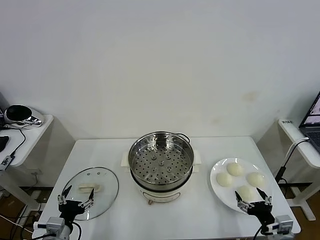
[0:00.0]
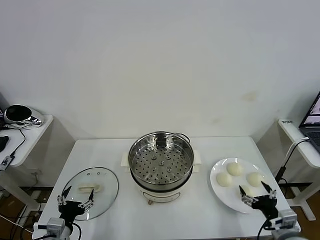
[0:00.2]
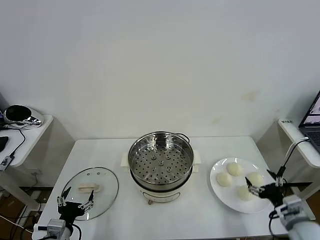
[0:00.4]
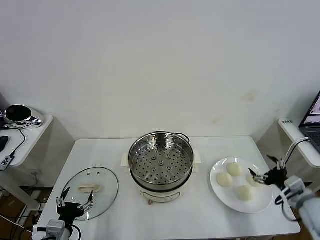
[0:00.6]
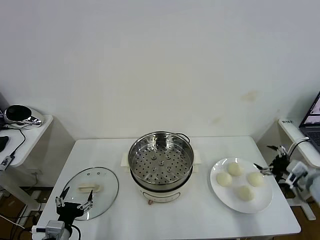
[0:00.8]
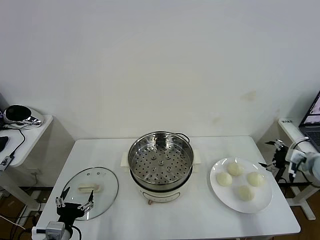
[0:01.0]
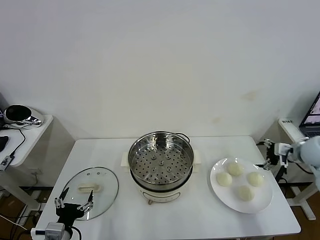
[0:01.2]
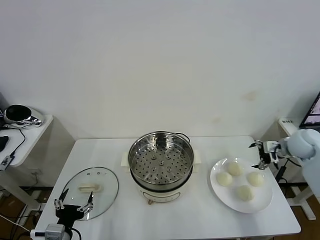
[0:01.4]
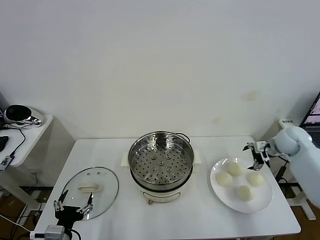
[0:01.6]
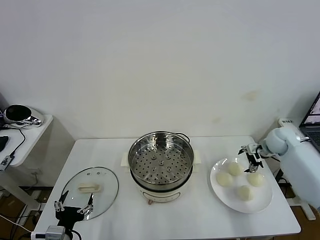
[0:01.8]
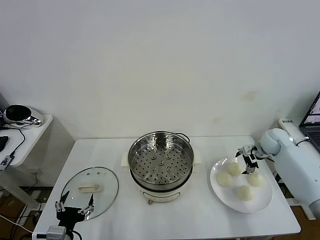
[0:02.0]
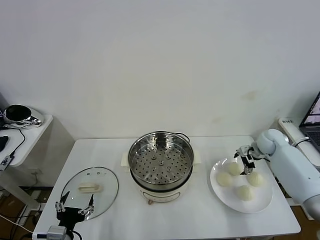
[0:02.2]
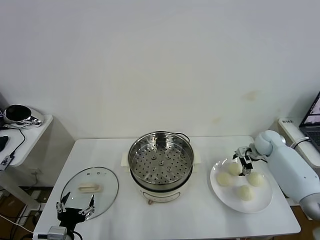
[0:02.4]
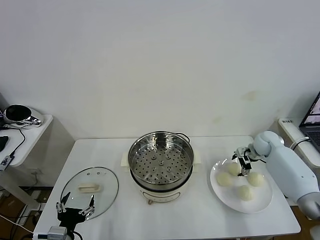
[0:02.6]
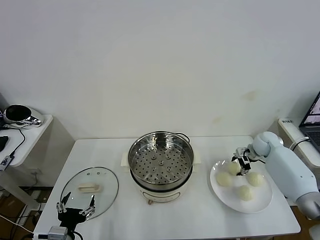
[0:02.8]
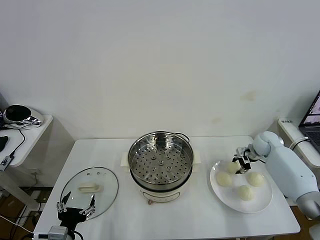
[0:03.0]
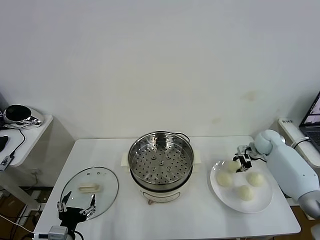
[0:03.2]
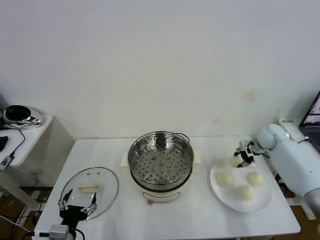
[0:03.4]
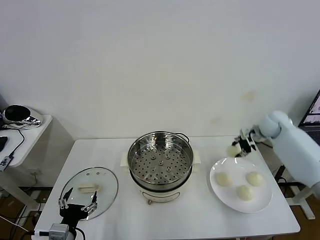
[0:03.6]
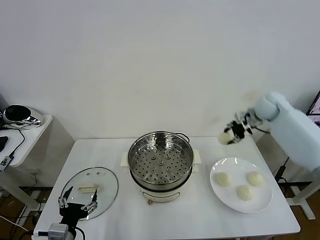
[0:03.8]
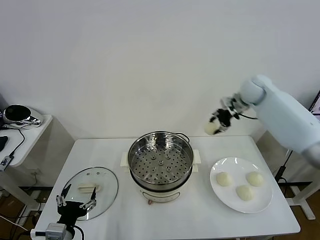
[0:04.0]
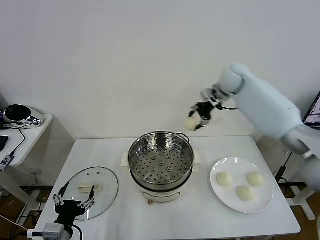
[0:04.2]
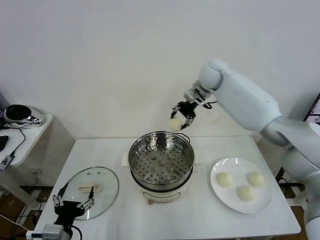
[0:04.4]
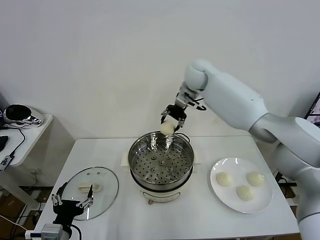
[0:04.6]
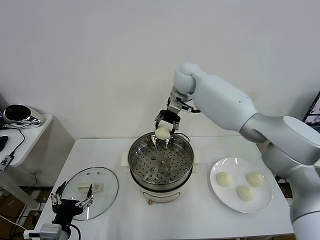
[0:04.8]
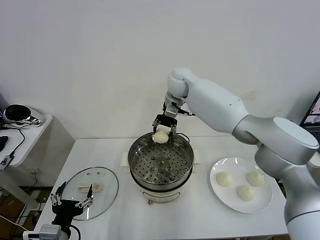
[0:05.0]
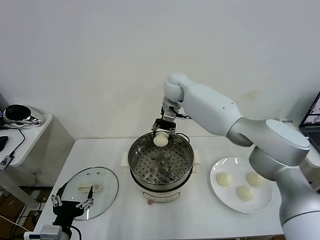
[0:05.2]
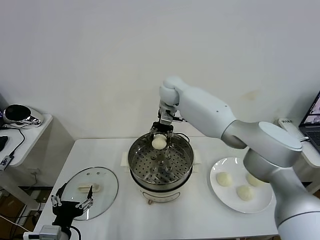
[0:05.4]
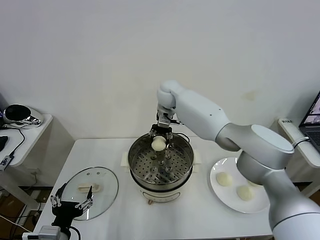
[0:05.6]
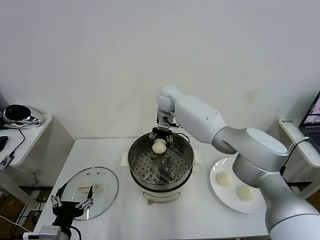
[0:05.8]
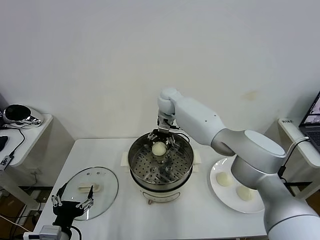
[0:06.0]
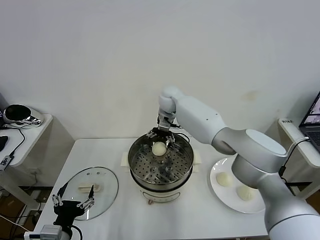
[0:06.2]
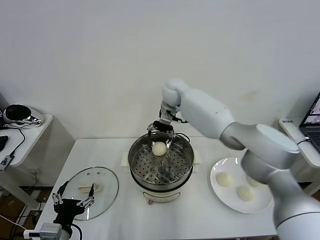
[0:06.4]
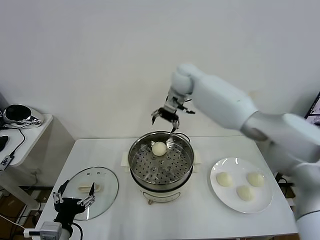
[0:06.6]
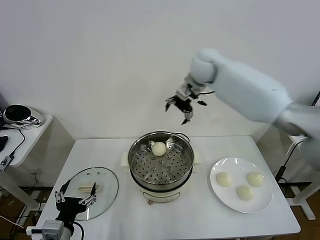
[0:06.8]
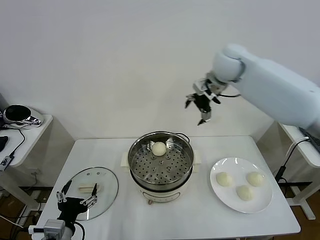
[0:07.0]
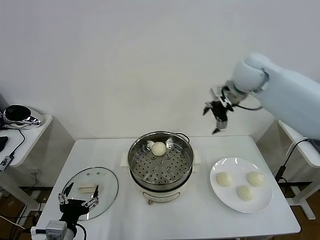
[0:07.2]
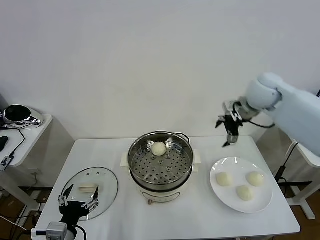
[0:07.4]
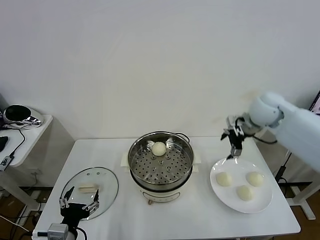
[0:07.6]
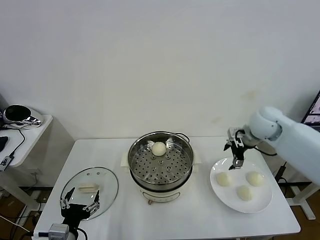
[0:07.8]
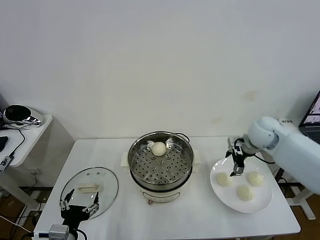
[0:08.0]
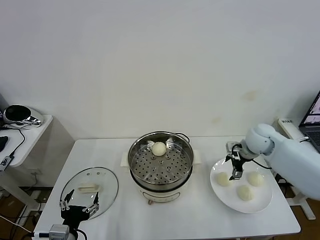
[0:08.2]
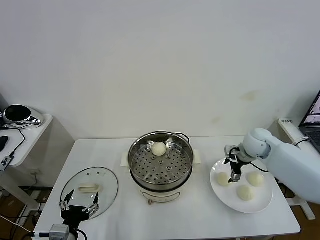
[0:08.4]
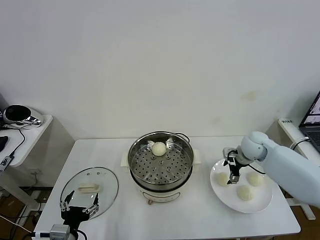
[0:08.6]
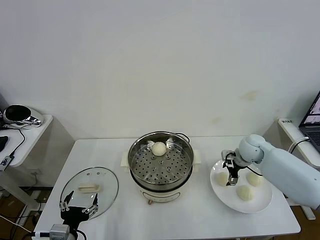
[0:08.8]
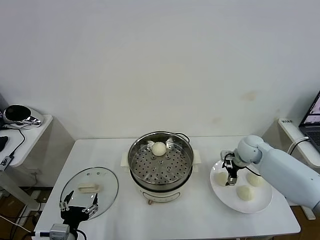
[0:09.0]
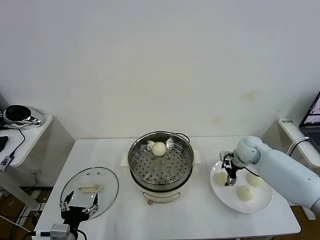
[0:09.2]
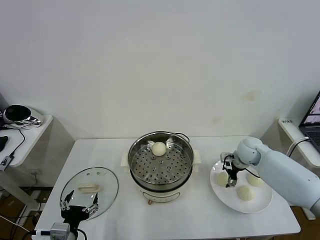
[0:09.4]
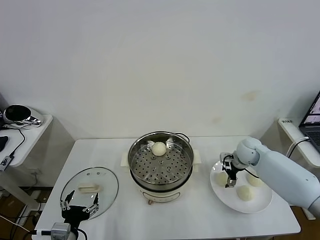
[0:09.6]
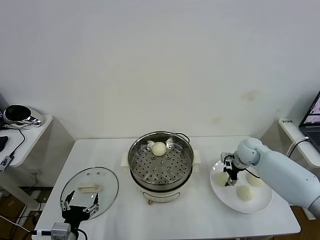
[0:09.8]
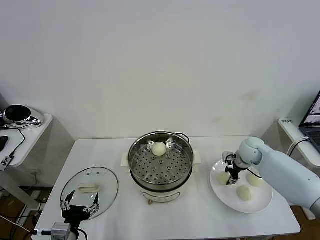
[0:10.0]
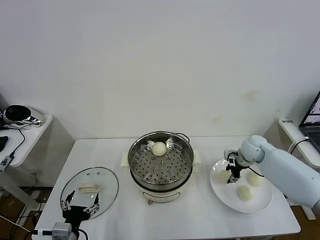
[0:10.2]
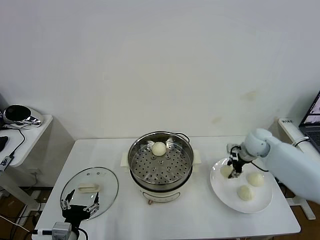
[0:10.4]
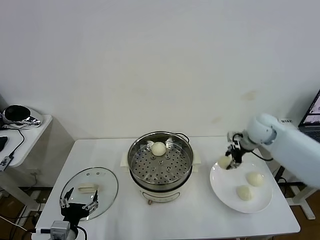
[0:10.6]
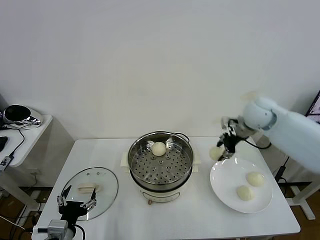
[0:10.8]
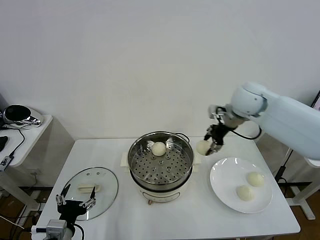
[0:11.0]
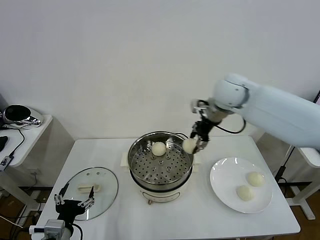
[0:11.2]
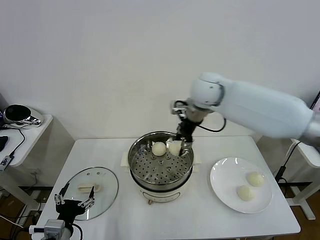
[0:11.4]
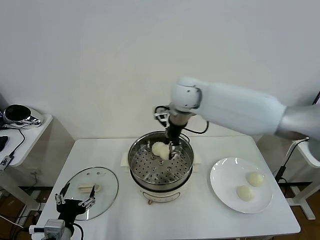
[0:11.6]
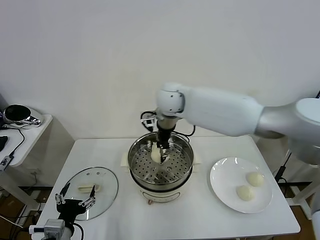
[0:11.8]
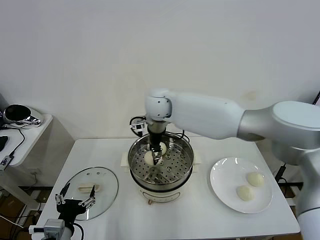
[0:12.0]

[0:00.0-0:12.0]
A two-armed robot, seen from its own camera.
Task of the whole recording: take steamed baozi put them in steamer then cover it.
Step, 0:00.0 to 0:03.0: Grasp the baozi in the plate with right gripper.
Step, 0:03.2 to 0:06.2: Place the baozi on the steamer with right gripper.
Step, 0:06.4 to 0:10.0: Grasp the baozi in the plate with right gripper.
0:01.6 to 0:03.0: The right gripper heads downward, covering approximately 5 cm, and closes its fingers.
0:03.0 to 0:04.4: The right gripper travels to the left and upward by some 35 cm.
0:04.4 to 0:06.0: The right gripper goes some 15 cm to the left and downward, and opens up.
0:06.0 to 0:07.6: The right gripper moves to the right and backward, some 30 cm.
0:07.6 to 0:09.0: The right gripper shifts approximately 15 cm downward.
0:09.0 to 0:10.4: The right gripper moves roughly 5 cm, and closes its fingers.
0:10.4 to 0:12.0: The right gripper shifts about 35 cm to the left.

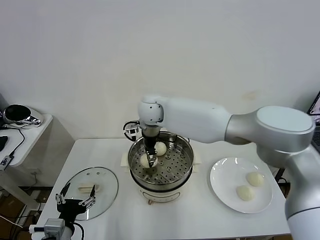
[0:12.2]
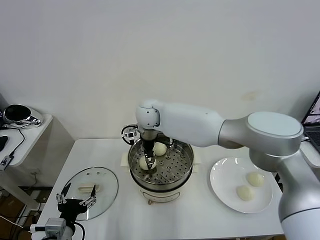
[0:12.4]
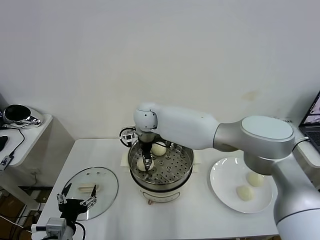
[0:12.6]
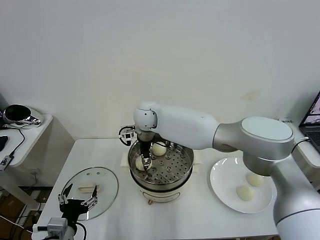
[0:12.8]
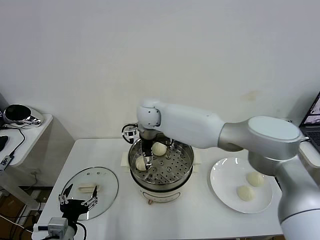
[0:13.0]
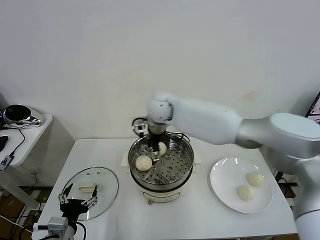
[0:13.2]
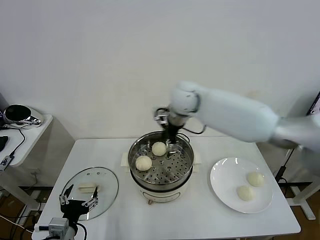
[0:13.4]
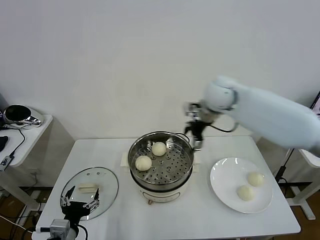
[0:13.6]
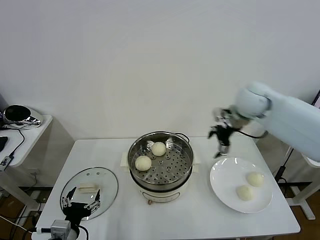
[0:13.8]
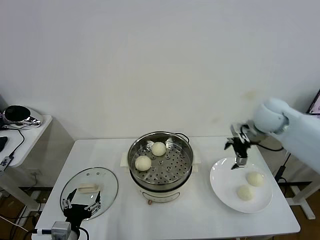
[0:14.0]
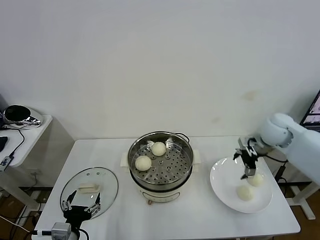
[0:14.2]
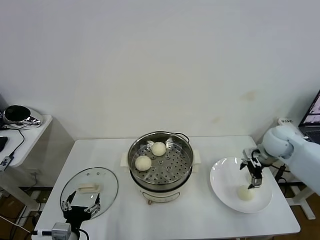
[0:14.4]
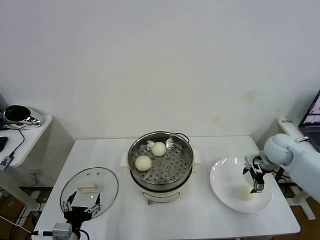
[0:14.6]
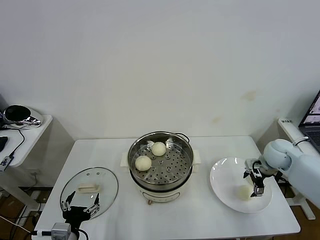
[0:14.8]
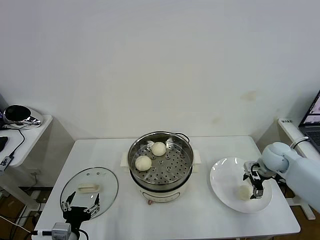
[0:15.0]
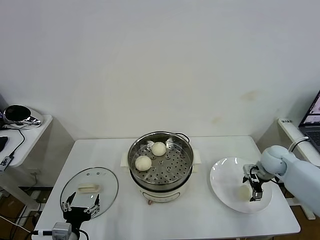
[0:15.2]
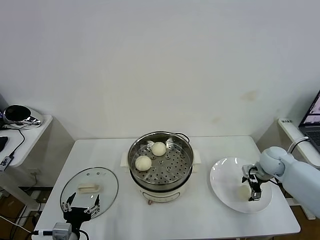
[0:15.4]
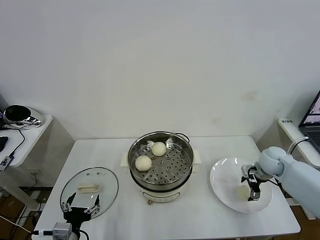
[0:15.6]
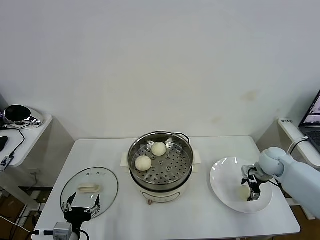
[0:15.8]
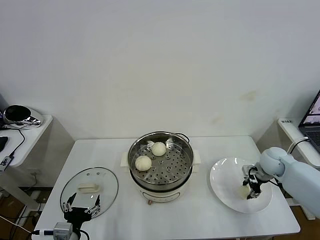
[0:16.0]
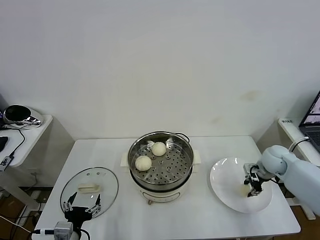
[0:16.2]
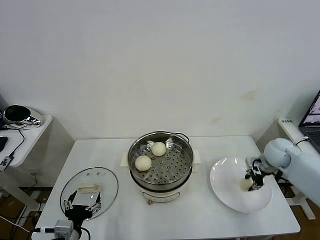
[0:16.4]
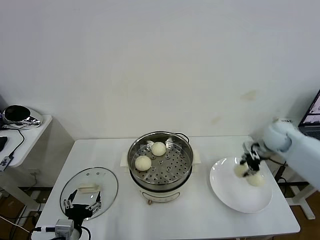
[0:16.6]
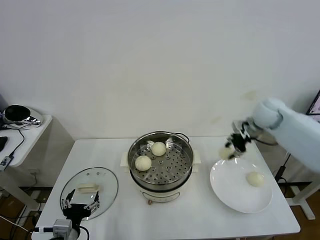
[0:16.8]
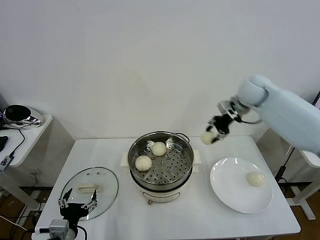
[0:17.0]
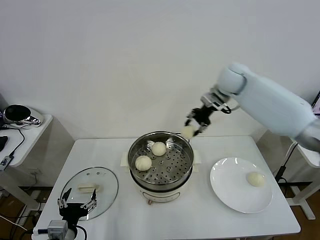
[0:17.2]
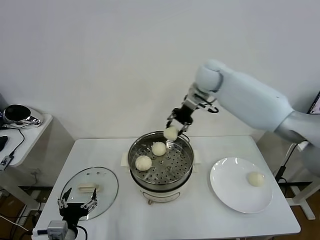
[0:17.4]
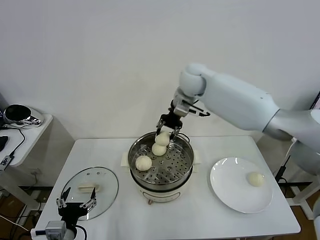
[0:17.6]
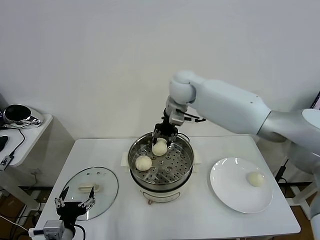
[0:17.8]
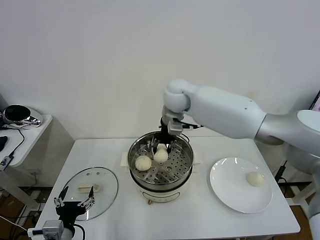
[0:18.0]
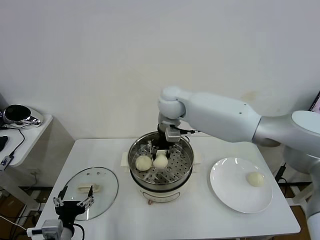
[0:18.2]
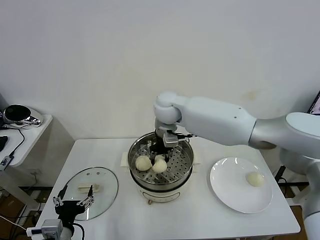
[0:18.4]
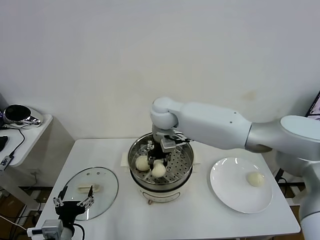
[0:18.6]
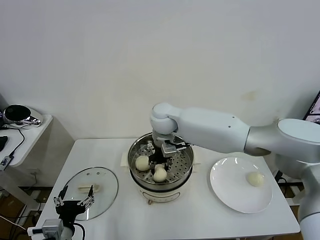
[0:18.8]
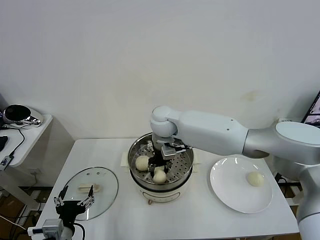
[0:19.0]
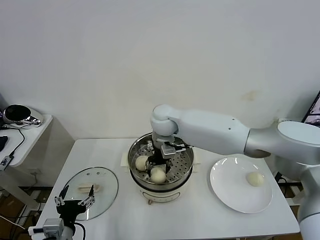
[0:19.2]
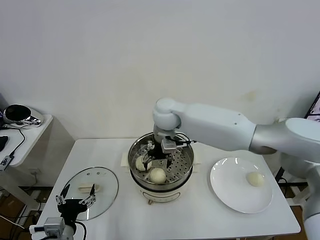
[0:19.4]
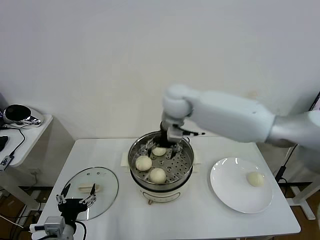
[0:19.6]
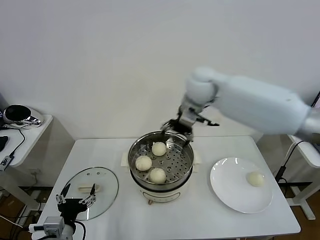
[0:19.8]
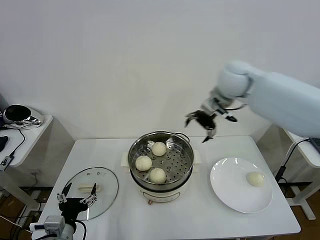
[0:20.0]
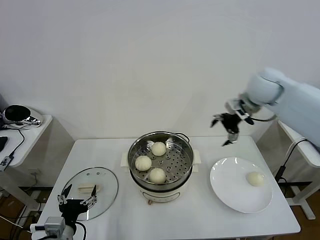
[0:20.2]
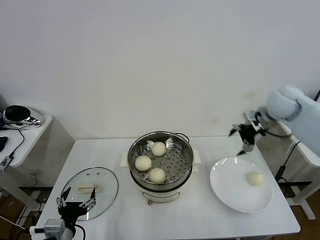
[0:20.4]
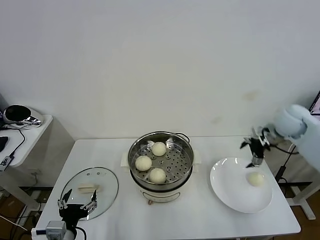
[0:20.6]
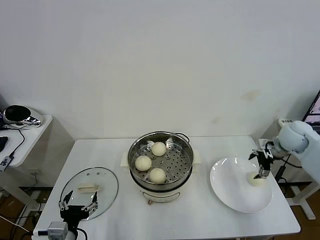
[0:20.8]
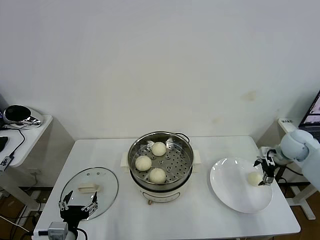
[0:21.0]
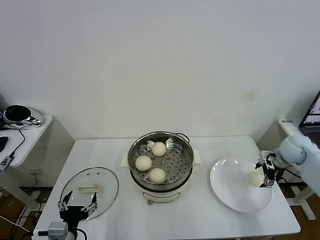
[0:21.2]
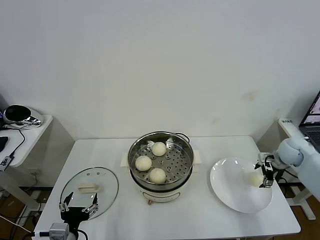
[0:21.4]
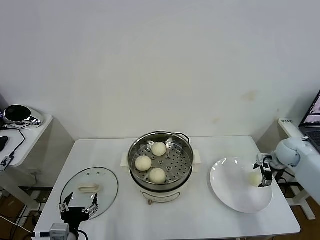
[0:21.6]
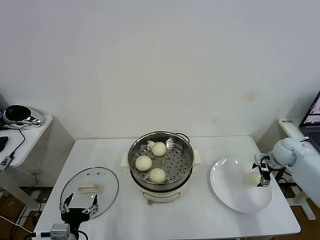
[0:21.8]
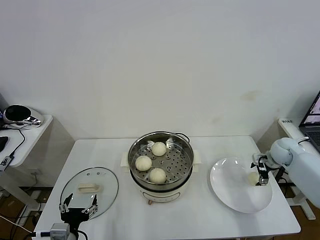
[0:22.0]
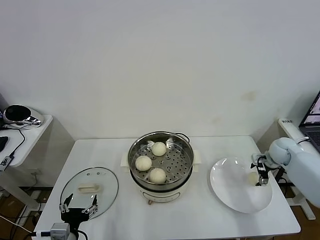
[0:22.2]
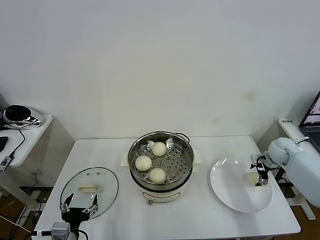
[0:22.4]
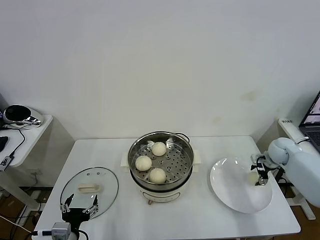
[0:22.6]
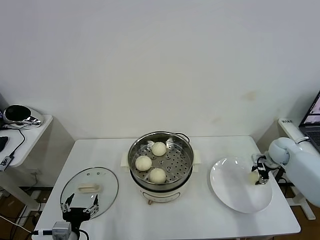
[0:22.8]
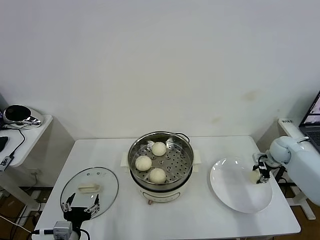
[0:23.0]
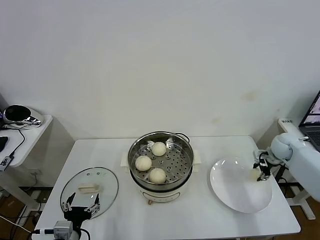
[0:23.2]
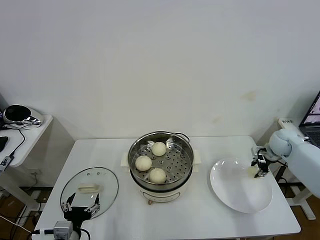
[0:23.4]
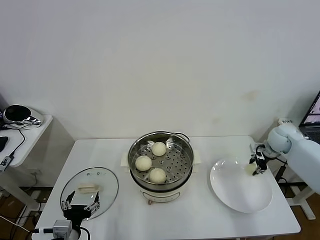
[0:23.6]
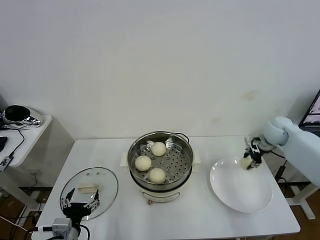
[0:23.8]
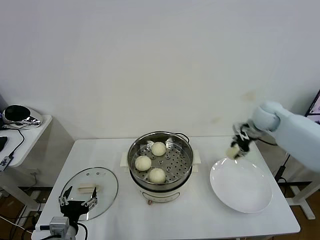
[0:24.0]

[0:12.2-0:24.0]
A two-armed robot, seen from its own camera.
Task of the whole recording: take steamed baozi put them in steamer then cover it.
Step, 0:13.2 to 0:16.2: Grasp the baozi in the plate with right gripper.
Step, 0:16.4 to 0:19.4: Place the baozi on the steamer with right gripper.
Step, 0:19.6 to 0:23.0: Grasp the baozi in the plate with right gripper.
0:12.2 to 0:13.6: The right gripper travels to the right by approximately 25 cm, and opens up.
0:13.6 to 0:15.2: The right gripper travels downward and to the right by some 30 cm.
0:15.2 to 0:16.6: The right gripper goes approximately 10 cm upward, and closes its fingers.
0:16.6 to 0:18.2: The right gripper moves to the left, approximately 35 cm.
0:18.2 to 0:19.6: The right gripper reaches roughly 5 cm downward, then returns, and opens its fingers.
0:19.6 to 0:21.0: The right gripper is displaced to the right by approximately 40 cm.
0:21.0 to 0:22.6: The right gripper heads downward, covering about 5 cm.
0:22.6 to 0:24.0: The right gripper moves upward and to the left, approximately 20 cm, and closes up.
